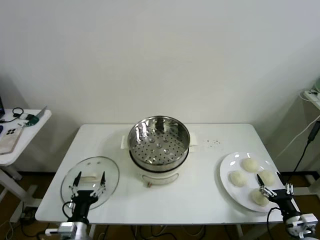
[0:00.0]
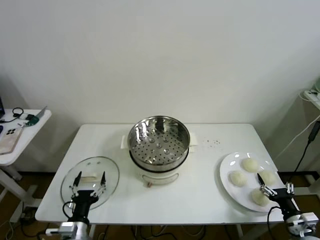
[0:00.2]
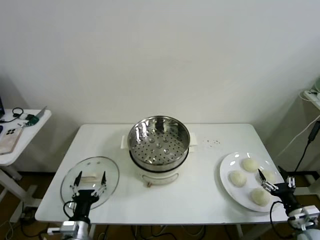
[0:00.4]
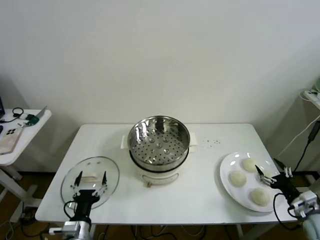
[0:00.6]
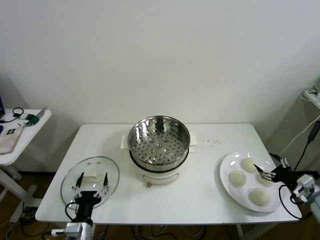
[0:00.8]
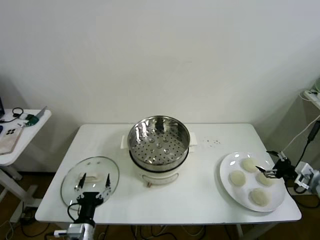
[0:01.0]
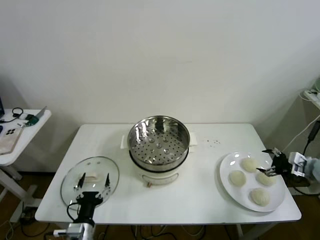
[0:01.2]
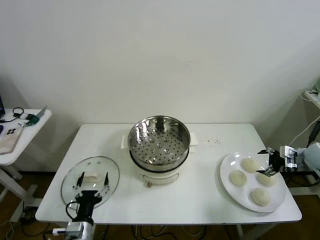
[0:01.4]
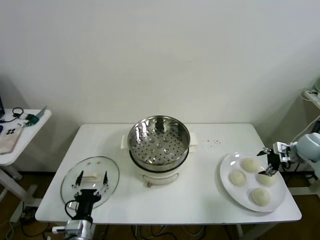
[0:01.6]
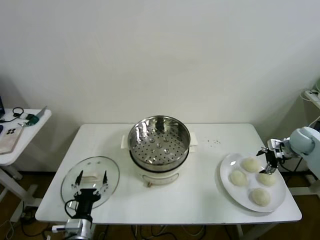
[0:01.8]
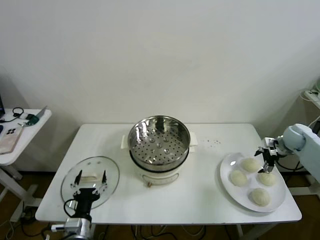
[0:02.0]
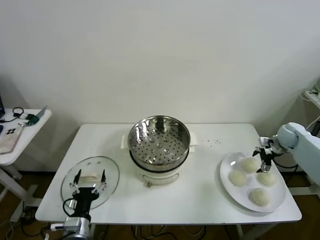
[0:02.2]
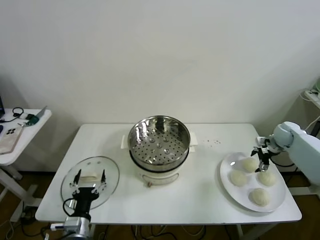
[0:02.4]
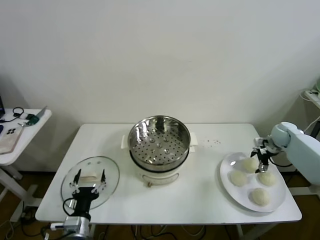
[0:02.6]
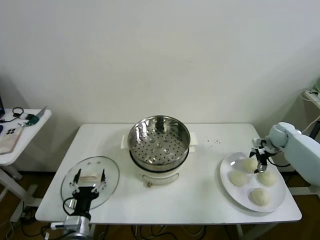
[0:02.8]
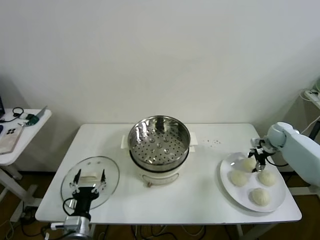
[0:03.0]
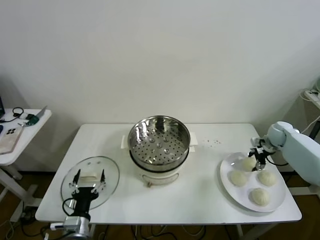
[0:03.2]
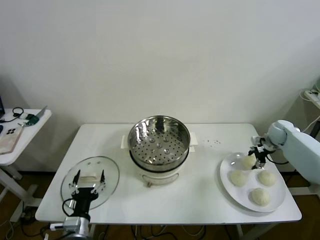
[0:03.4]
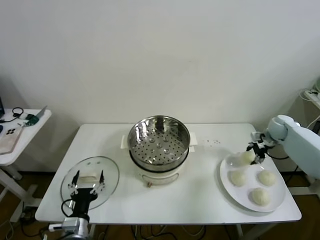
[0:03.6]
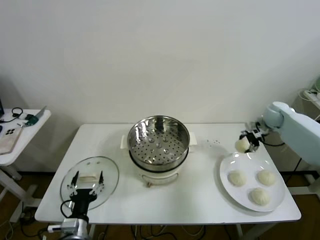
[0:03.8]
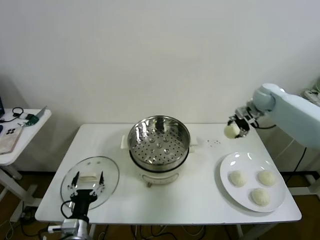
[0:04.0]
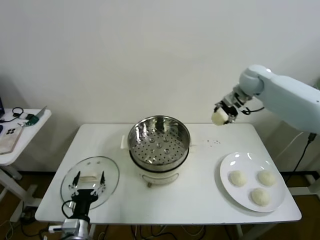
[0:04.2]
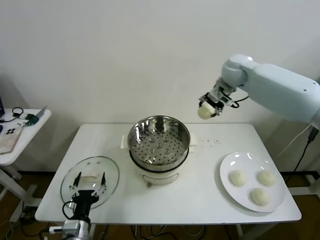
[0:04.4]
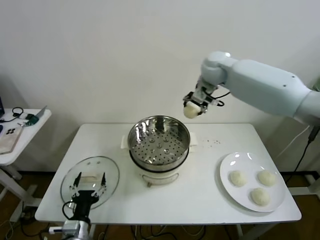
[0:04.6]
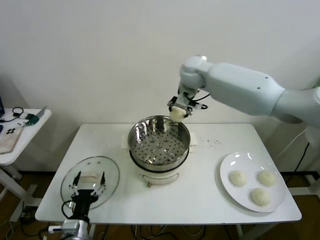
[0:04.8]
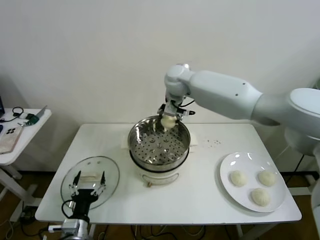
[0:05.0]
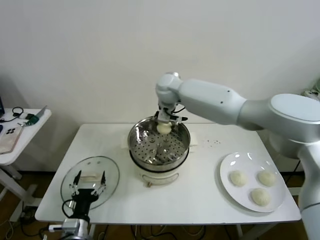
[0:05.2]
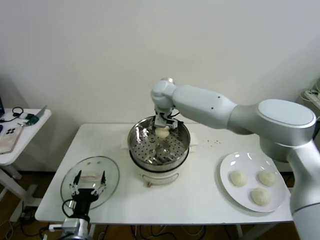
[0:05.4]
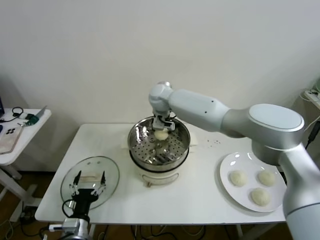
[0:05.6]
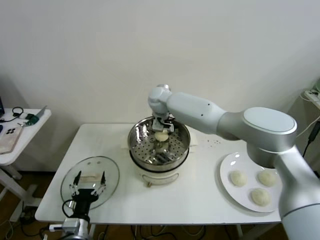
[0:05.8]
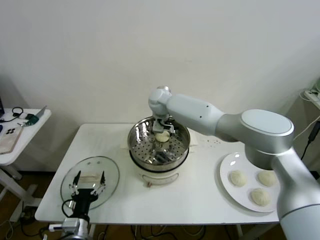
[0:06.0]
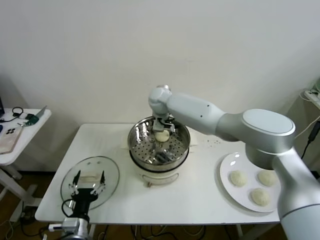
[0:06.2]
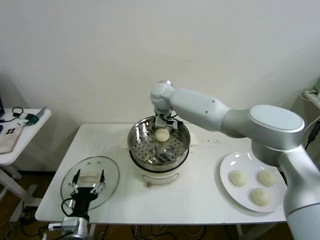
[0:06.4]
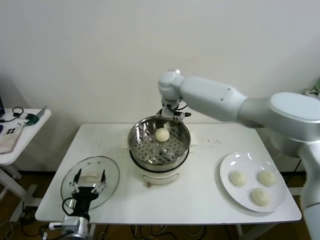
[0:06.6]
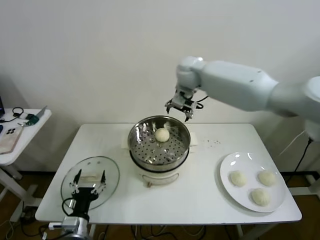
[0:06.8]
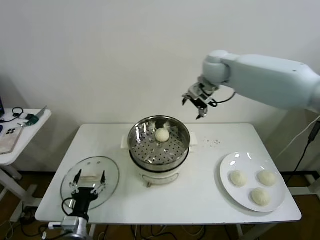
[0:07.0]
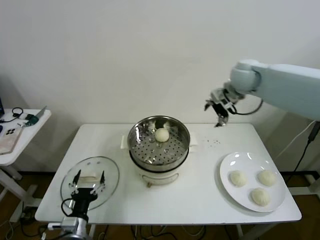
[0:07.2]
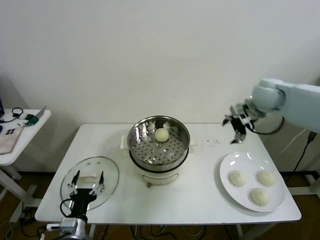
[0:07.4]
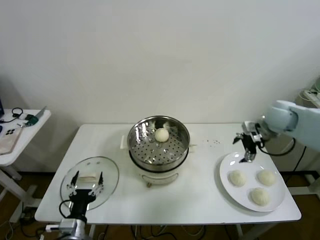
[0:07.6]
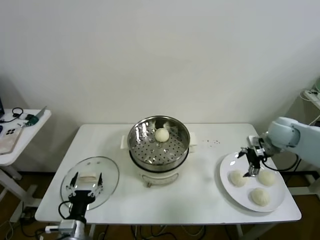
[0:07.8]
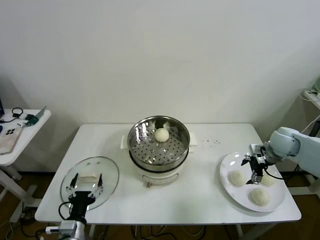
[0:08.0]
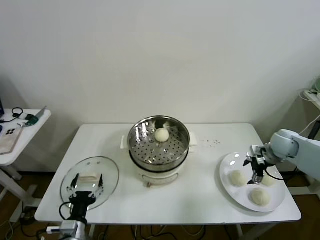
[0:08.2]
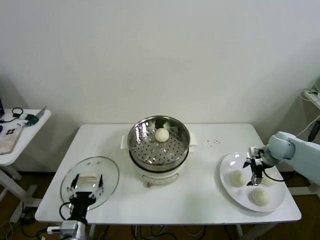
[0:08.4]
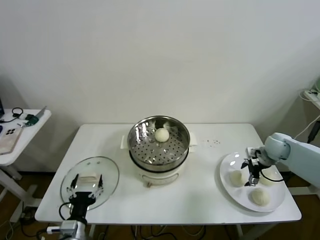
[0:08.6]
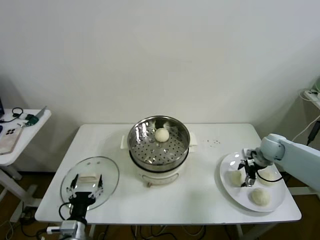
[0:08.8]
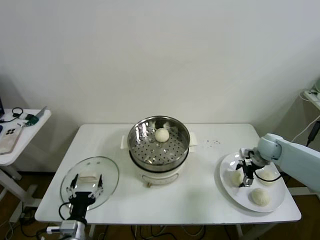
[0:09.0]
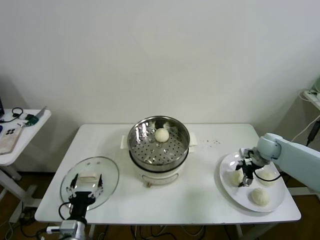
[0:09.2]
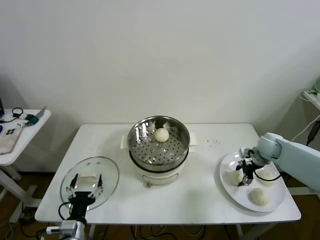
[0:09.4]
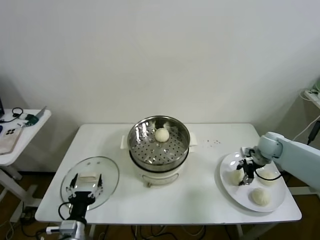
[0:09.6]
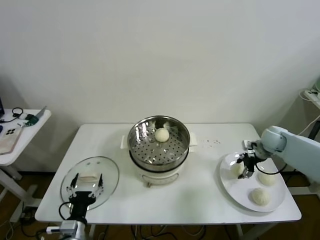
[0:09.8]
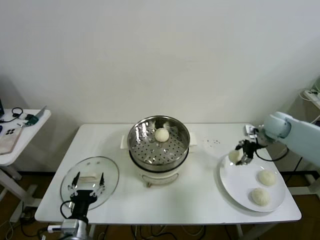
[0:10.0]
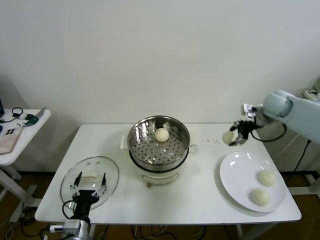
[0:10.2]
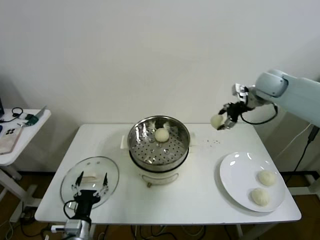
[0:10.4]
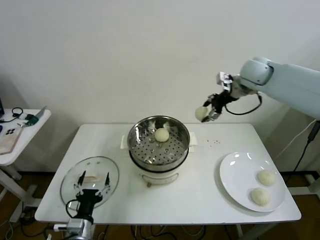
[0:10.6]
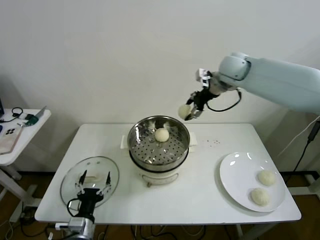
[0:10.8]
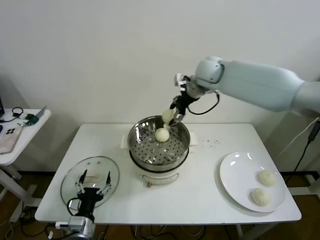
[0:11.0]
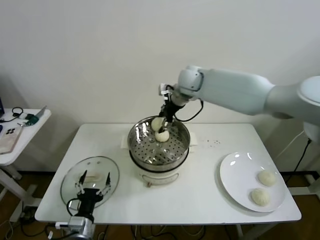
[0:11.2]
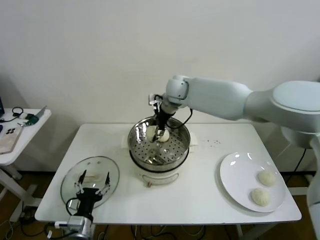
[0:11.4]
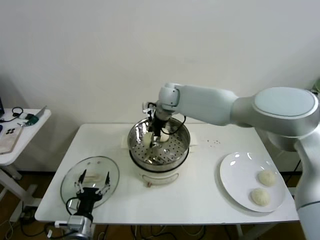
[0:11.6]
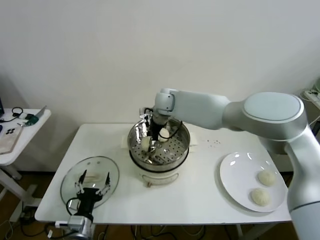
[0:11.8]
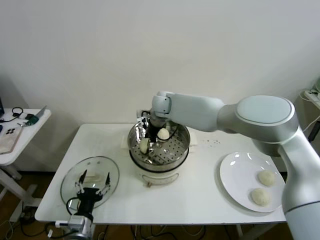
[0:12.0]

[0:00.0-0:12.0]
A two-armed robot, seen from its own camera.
Task of the whole recording: take steamed baozi put them in steamer then cover it.
Step, 0:00.0 to 0:03.2: Grasp the baozi in the plate with right gripper.
Step, 0:03.4 to 0:06.2: Place the baozi on the steamer with right gripper.
Step, 0:06.4 to 0:09.2: Grasp the baozi in the plate with right gripper.
0:01.6 to 0:03.0: The right gripper heads forward, covering about 5 cm, and closes.
0:03.0 to 0:04.4: The right gripper is displaced to the left and upward by about 40 cm.
0:04.4 to 0:06.0: The right gripper shifts roughly 25 cm to the left and downward, and opens.
0:06.0 to 0:07.6: The right gripper goes some 40 cm to the right.
0:07.6 to 0:09.0: The right gripper goes roughly 15 cm downward.
0:09.0 to 0:10.4: The right gripper shifts about 25 cm upward, and closes.
0:10.4 to 0:12.0: The right gripper goes some 30 cm to the left.

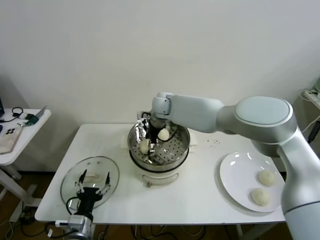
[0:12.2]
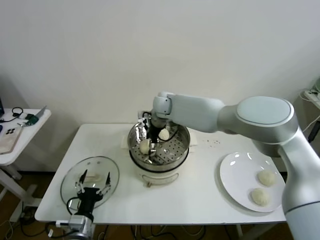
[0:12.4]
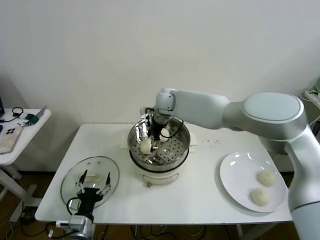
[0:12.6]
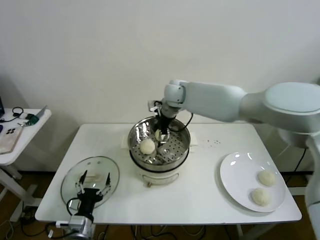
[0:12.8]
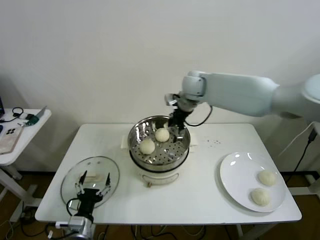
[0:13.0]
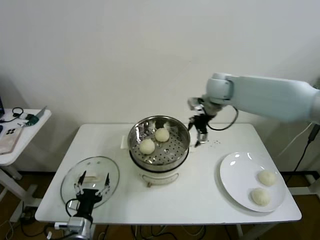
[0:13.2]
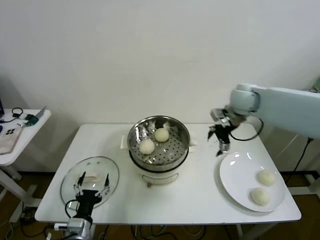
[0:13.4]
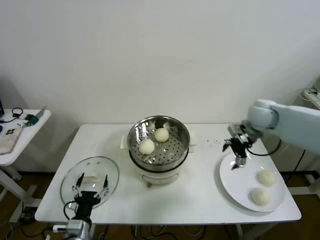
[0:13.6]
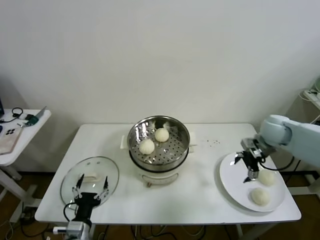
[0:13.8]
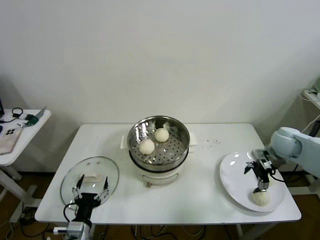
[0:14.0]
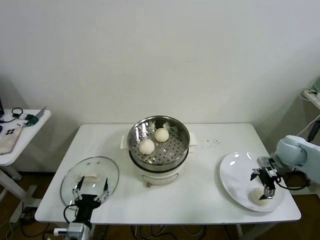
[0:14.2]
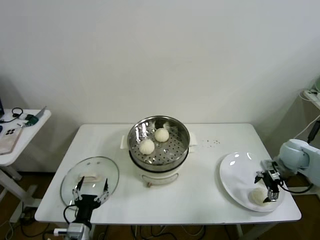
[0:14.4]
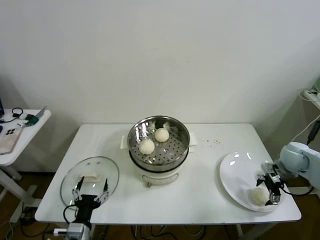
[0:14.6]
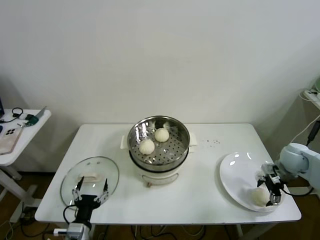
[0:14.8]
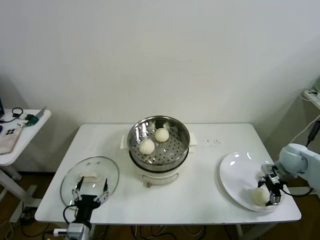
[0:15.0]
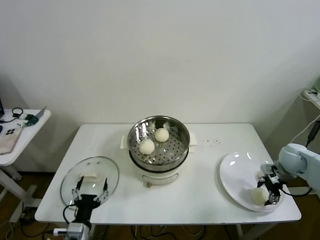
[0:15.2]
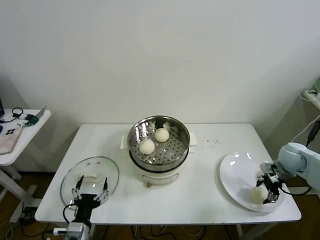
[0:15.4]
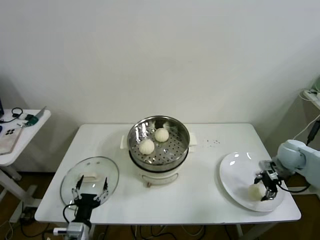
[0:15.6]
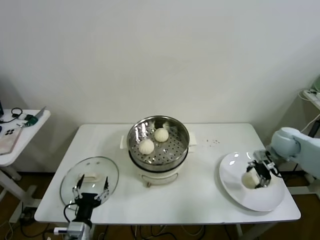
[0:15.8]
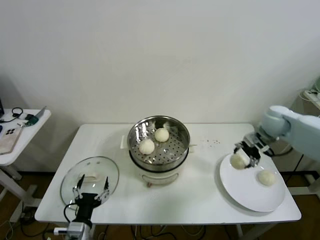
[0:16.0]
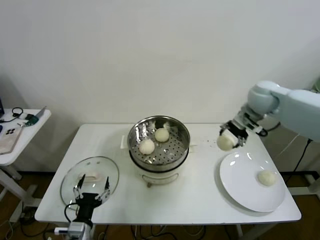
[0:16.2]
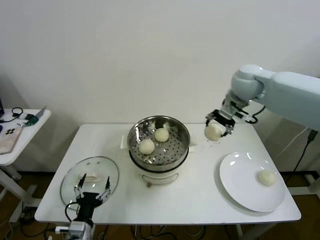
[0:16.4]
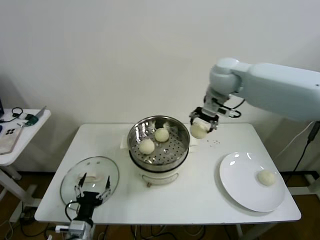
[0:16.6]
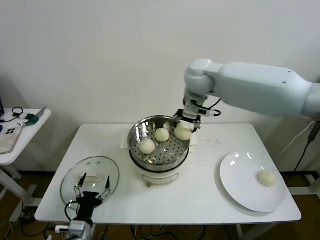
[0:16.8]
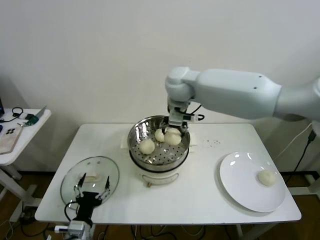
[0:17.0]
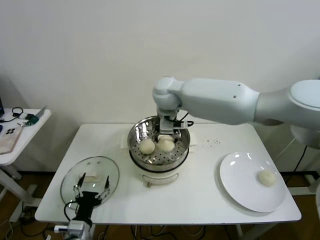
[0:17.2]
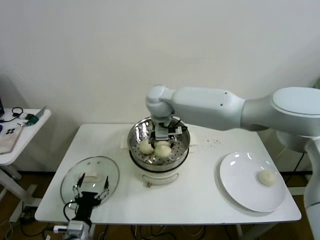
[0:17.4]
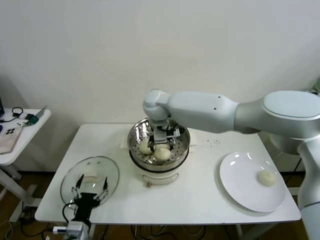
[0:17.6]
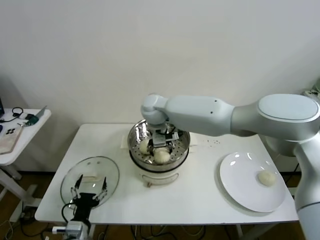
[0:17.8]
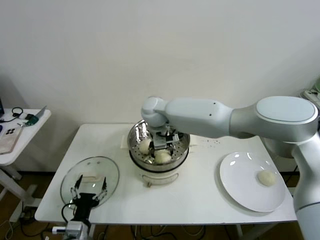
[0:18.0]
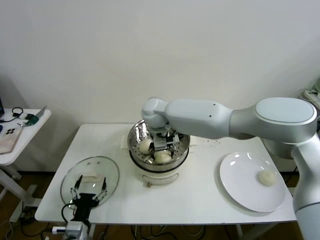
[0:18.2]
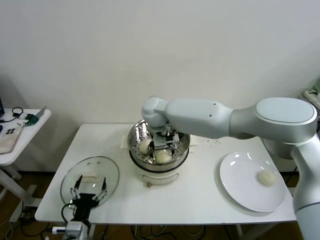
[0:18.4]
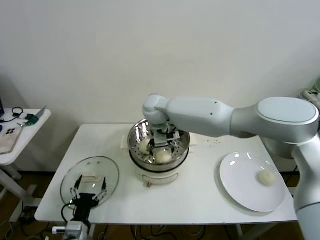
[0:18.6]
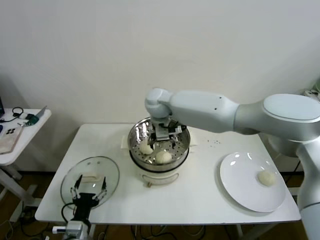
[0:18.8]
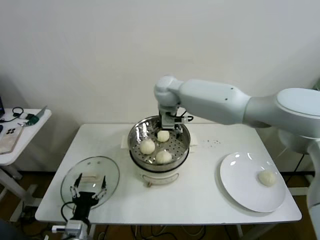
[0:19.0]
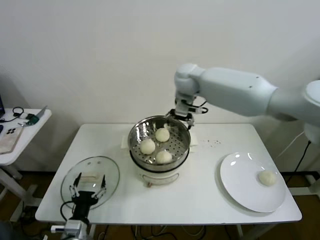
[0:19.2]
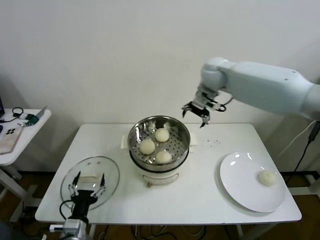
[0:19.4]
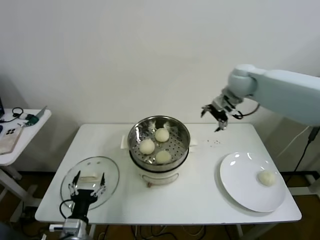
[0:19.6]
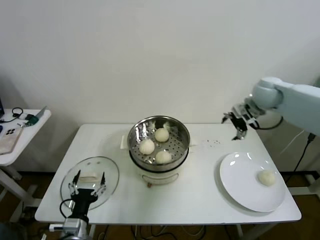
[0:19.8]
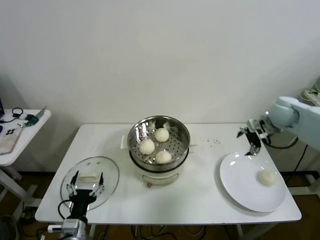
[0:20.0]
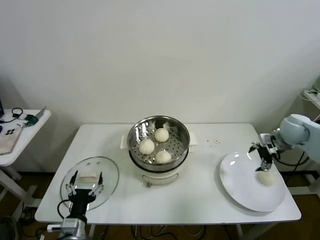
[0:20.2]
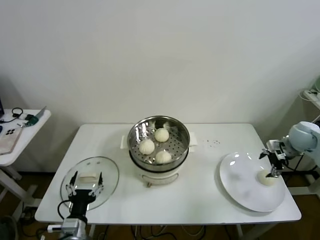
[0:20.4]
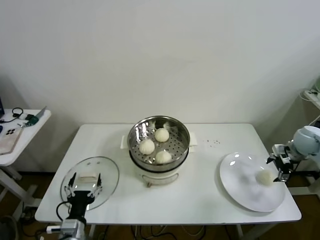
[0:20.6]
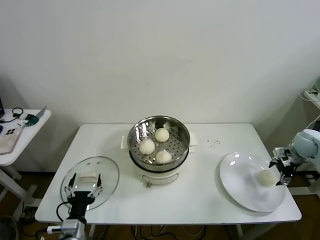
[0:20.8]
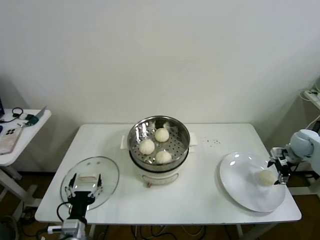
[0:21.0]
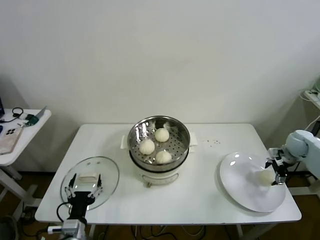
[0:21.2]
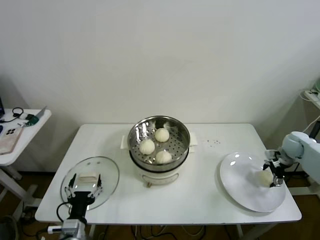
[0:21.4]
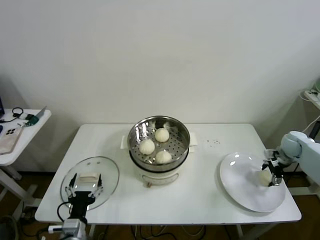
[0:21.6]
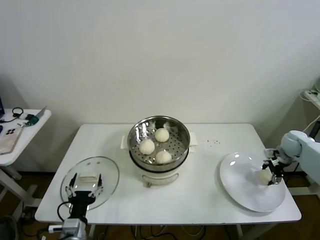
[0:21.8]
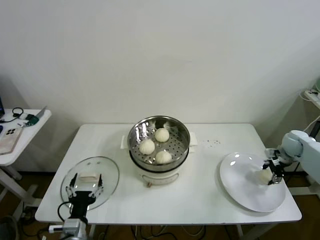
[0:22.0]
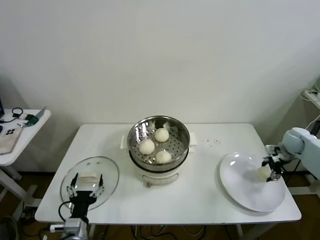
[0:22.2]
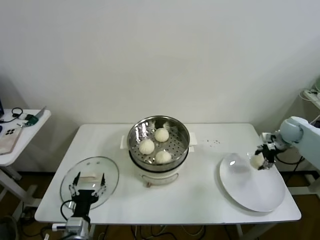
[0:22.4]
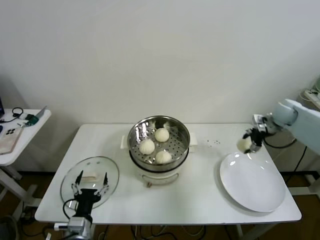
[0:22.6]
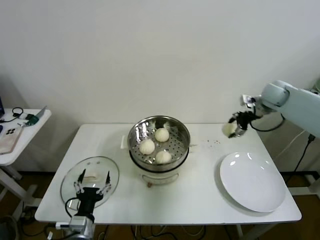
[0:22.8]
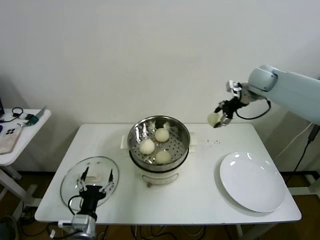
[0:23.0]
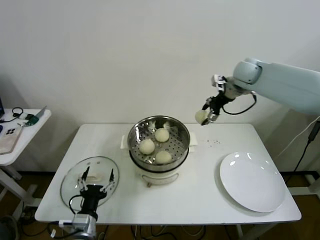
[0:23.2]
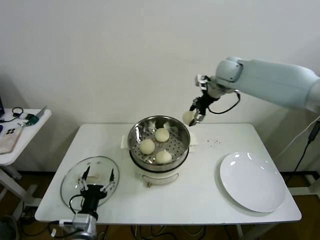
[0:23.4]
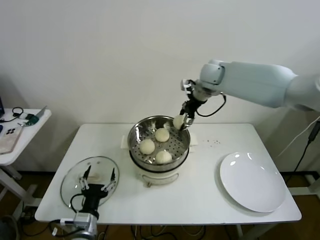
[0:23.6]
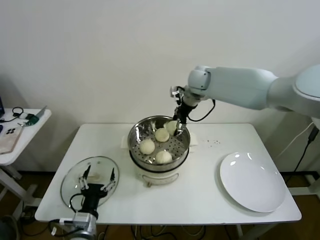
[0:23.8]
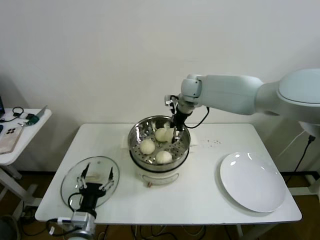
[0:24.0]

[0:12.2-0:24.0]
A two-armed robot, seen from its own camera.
Task of the whole recording: take steamed baozi put them in steamer then cover it.
Step, 0:12.6 to 0:15.2: Grasp the baozi in the plate with right gripper.
Step, 0:15.4 to 0:18.4: Place the baozi on the steamer with right gripper.
Step, 0:18.6 to 0:21.8: Grasp the baozi in the plate with right gripper.
0:12.2 to 0:13.6: The right gripper goes some 35 cm to the right.
0:13.6 to 0:15.2: The right gripper goes about 20 cm downward, to the right and backward, and closes up.
0:15.2 to 0:16.6: The right gripper goes some 40 cm to the left and upward.
0:16.6 to 0:18.2: The right gripper is displaced to the left and downward by roughly 25 cm, and opens its fingers.
0:18.2 to 0:19.6: The right gripper goes roughly 30 cm to the right, and opens up.
0:19.6 to 0:21.0: The right gripper is displaced to the right and downward by some 35 cm.
0:21.0 to 0:22.6: The right gripper is displaced upward, to the left and forward by some 15 cm, and closes up.
0:22.6 to 0:24.0: The right gripper moves to the left, roughly 35 cm.
